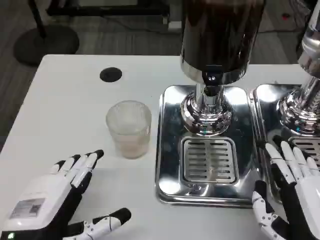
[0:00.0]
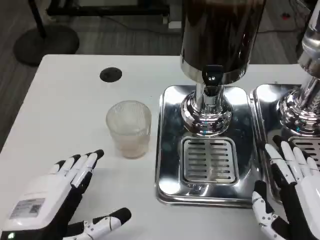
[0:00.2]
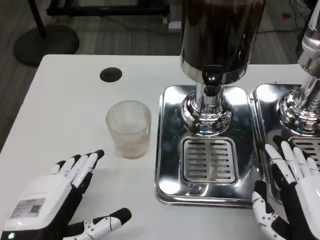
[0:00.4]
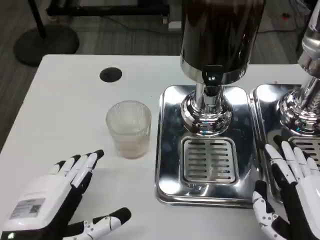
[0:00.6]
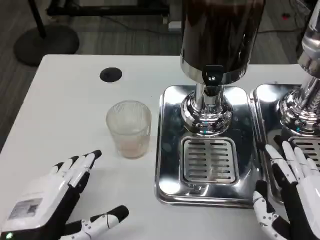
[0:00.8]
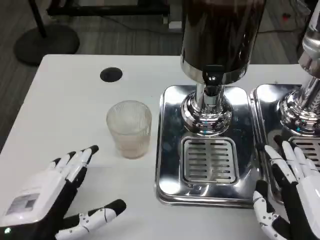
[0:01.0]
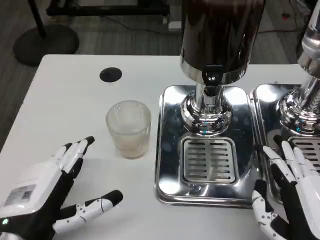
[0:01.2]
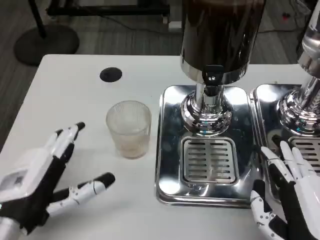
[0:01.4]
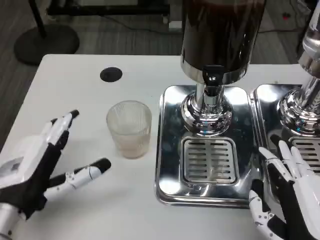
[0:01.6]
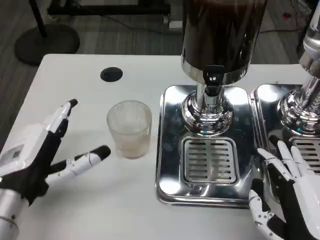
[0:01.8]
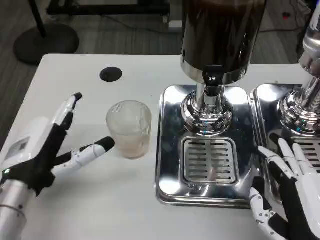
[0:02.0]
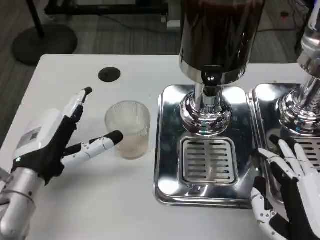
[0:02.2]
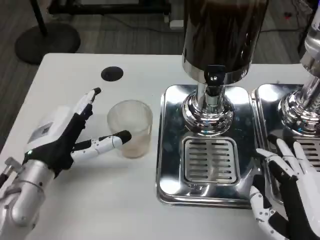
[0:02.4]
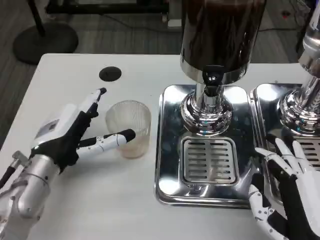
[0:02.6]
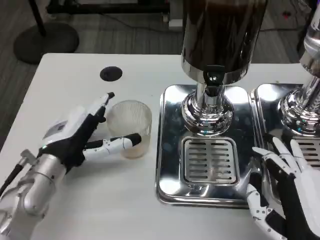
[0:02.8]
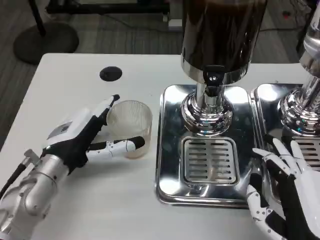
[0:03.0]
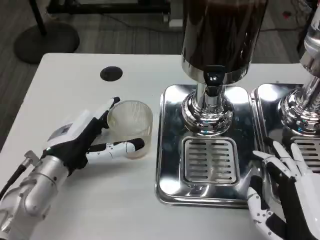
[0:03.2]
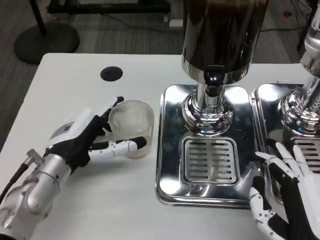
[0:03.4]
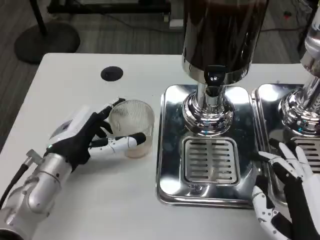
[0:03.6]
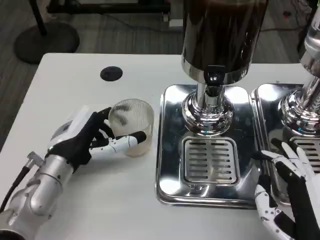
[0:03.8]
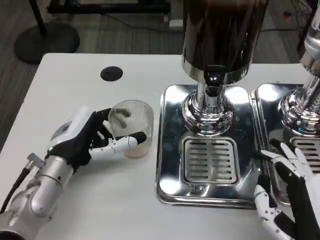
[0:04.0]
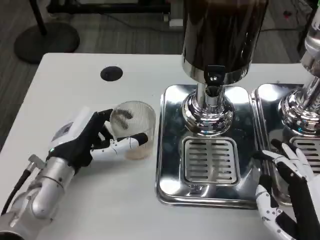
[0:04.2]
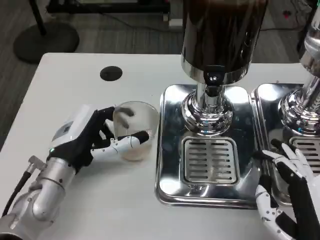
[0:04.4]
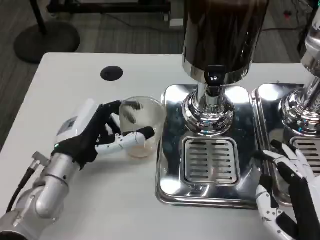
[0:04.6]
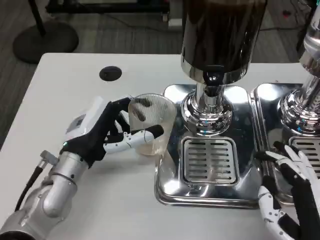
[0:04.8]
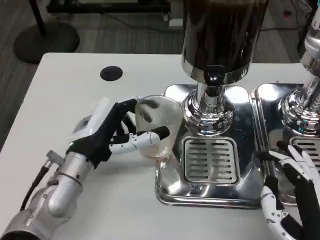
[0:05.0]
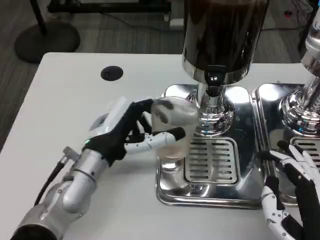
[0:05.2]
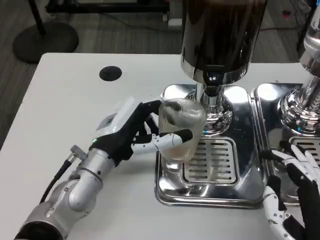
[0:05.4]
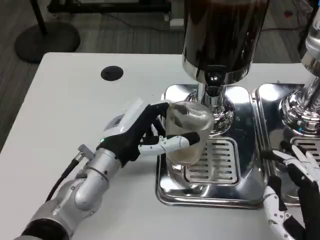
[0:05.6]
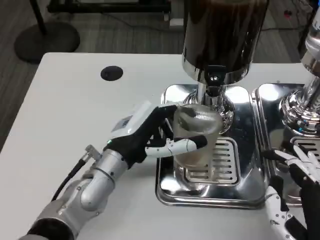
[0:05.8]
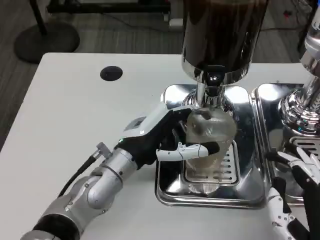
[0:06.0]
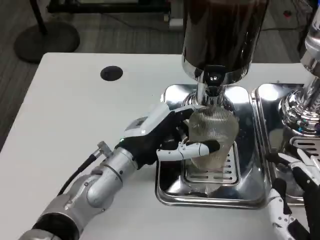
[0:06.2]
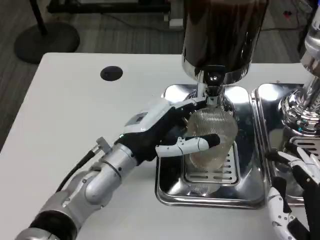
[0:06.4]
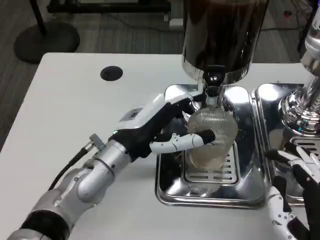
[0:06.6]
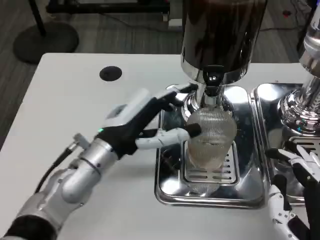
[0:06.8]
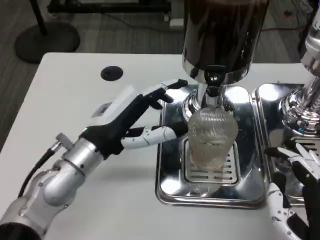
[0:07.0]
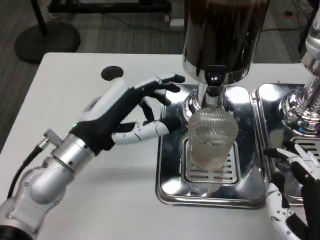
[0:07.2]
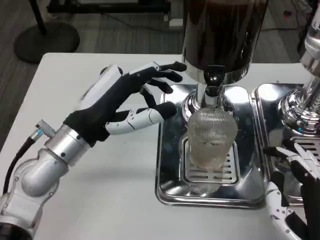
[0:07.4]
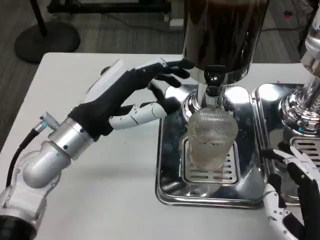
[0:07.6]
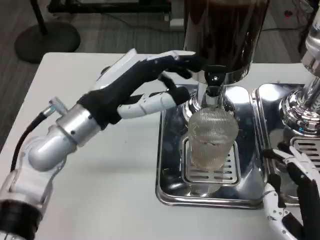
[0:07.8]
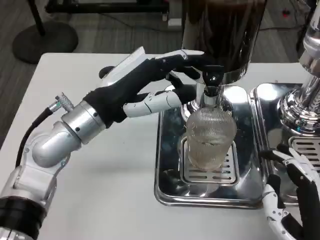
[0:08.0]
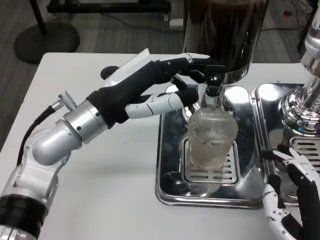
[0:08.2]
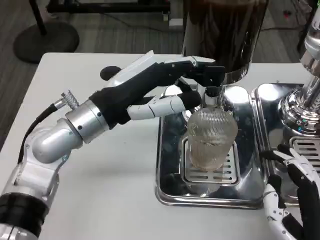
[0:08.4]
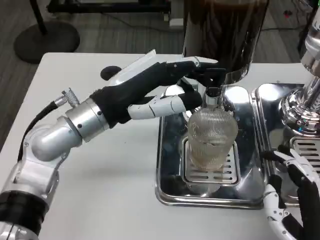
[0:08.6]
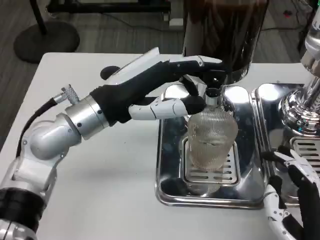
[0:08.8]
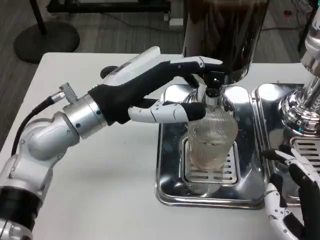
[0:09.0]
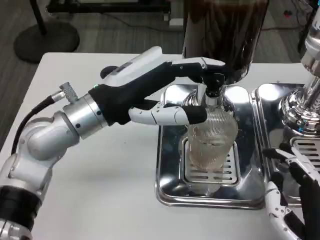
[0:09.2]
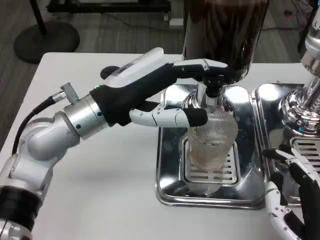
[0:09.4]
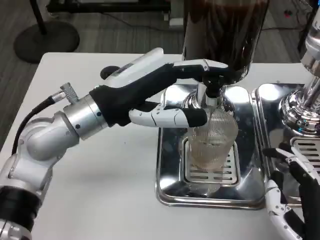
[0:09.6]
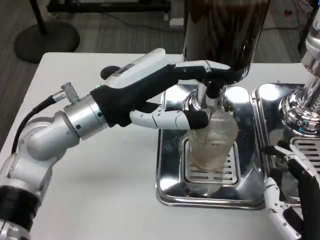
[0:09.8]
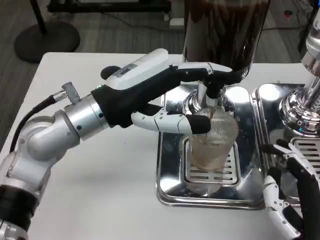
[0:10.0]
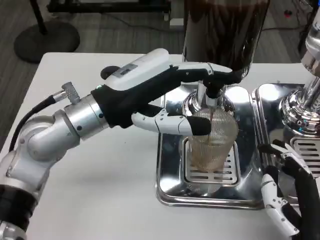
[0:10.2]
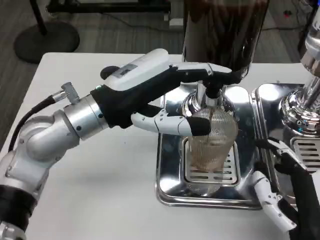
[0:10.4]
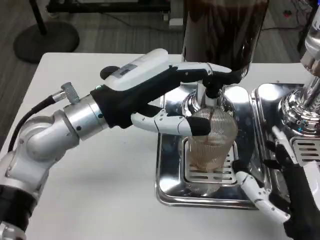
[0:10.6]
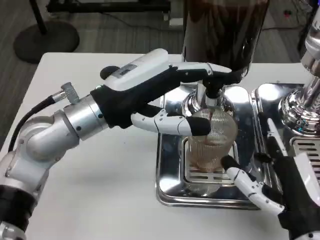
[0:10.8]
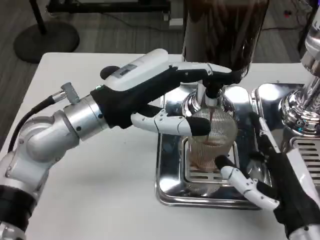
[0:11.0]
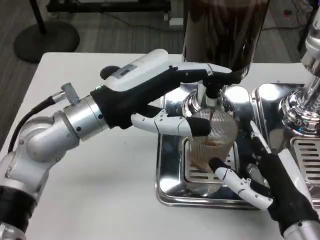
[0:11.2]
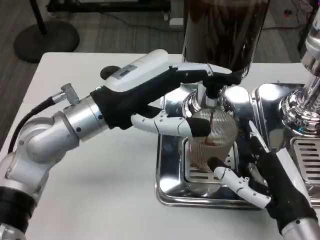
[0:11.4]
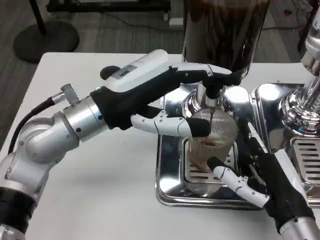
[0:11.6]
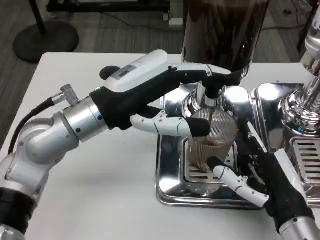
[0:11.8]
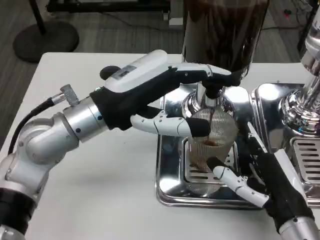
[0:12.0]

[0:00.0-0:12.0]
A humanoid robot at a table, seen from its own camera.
Task of the whole recording: Grasp the cup under the faucet to collect the drink, then remove the cup.
0:00.0 to 0:01.6: The left hand heads forward, covering about 5 cm.
0:01.6 to 0:03.0: The left hand is displaced forward by approximately 10 cm.
0:03.0 to 0:04.4: There are only small adjustments of the hands.
0:04.4 to 0:06.0: The left hand heads to the right, covering some 10 cm.
0:06.0 to 0:07.6: The left hand heads upward and to the left, covering about 10 cm.
0:07.6 to 0:09.0: The hands move only a little.
0:09.0 to 0:10.4: The hands make only small movements.
0:10.4 to 0:12.0: The right hand is displaced forward by approximately 5 cm.

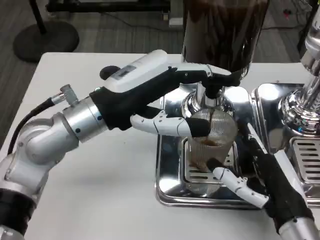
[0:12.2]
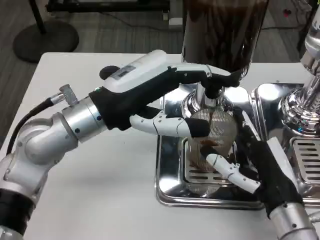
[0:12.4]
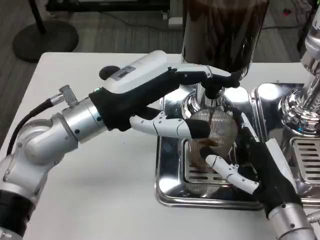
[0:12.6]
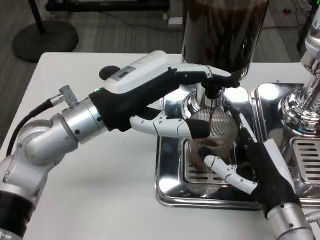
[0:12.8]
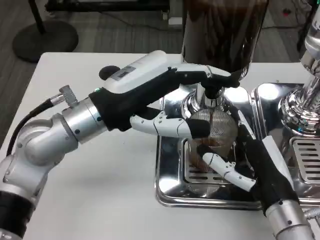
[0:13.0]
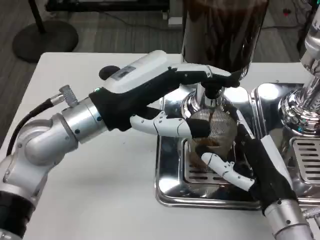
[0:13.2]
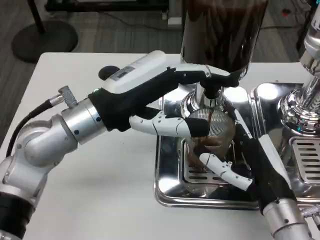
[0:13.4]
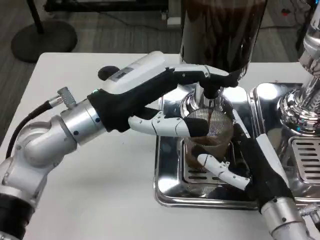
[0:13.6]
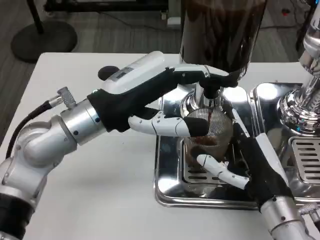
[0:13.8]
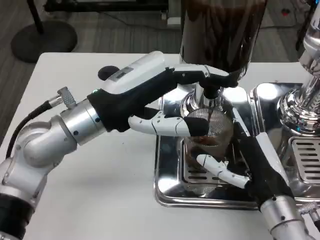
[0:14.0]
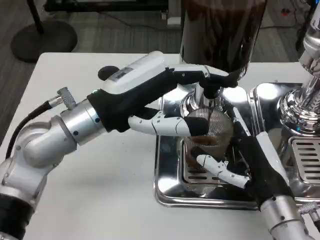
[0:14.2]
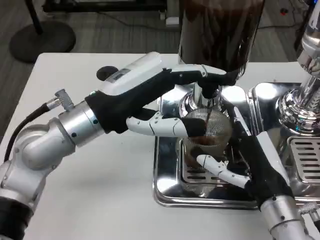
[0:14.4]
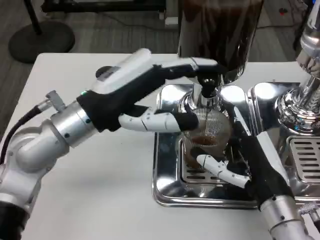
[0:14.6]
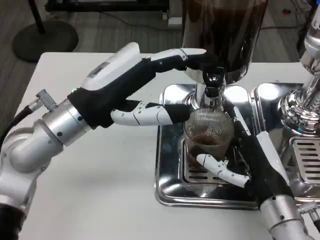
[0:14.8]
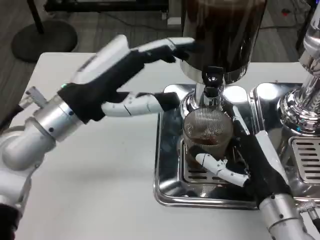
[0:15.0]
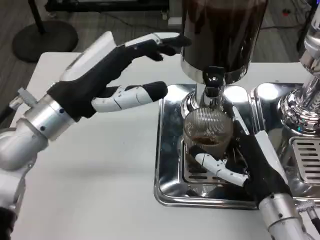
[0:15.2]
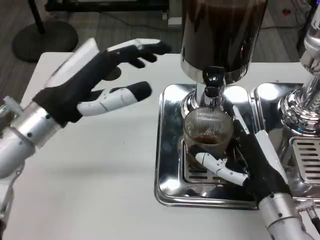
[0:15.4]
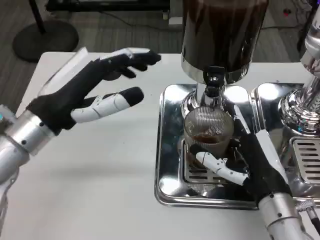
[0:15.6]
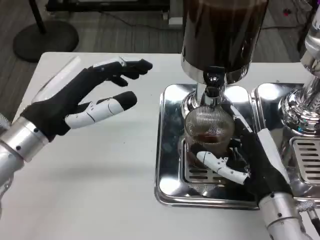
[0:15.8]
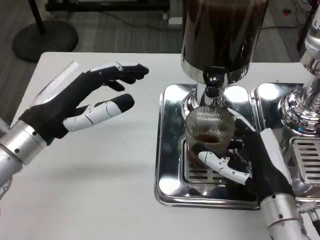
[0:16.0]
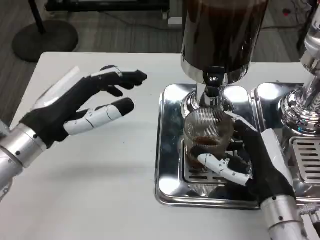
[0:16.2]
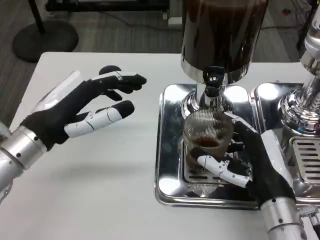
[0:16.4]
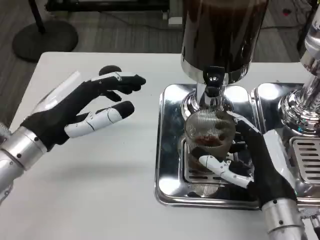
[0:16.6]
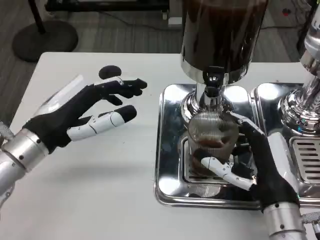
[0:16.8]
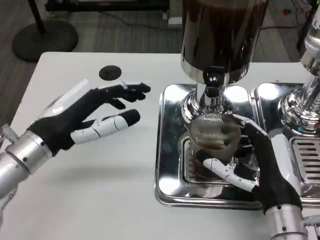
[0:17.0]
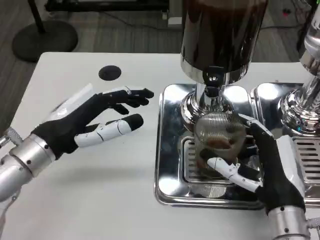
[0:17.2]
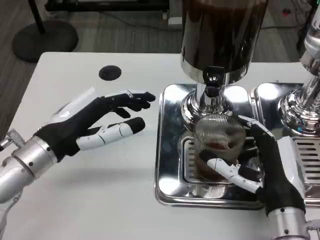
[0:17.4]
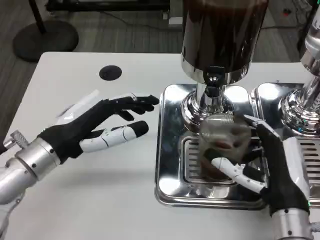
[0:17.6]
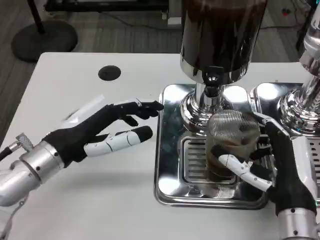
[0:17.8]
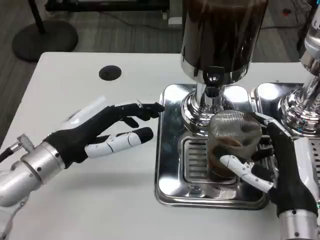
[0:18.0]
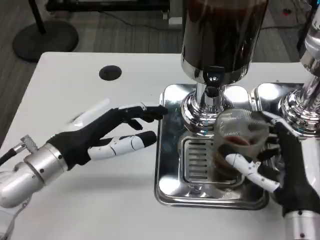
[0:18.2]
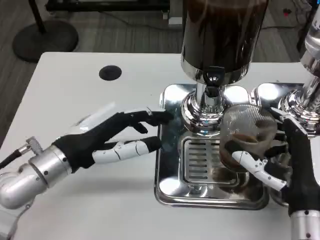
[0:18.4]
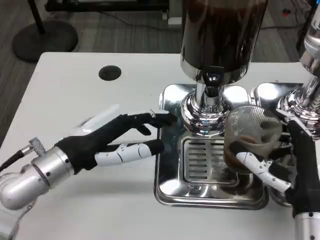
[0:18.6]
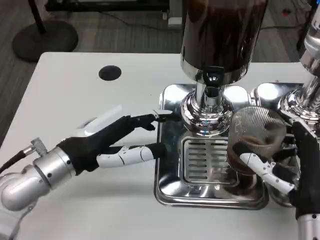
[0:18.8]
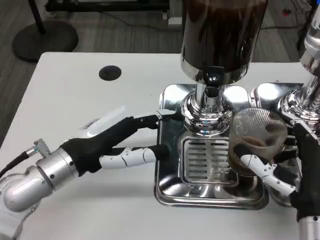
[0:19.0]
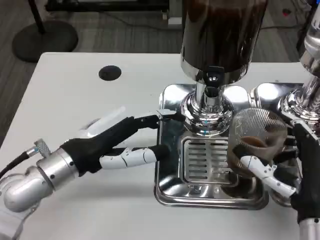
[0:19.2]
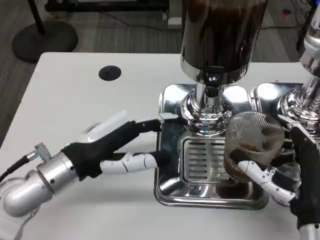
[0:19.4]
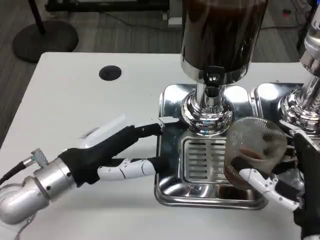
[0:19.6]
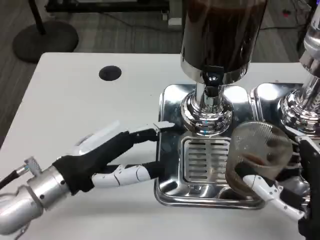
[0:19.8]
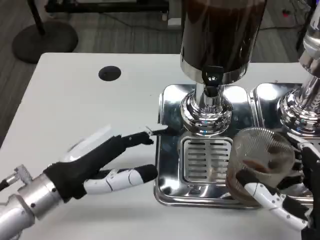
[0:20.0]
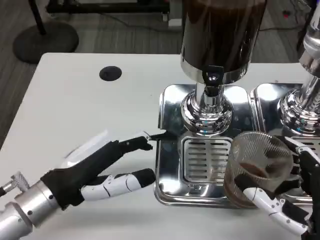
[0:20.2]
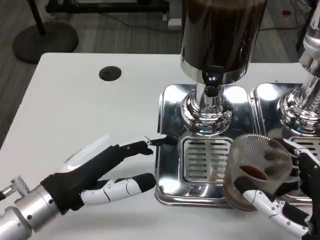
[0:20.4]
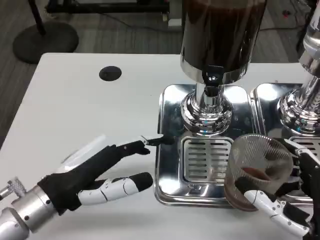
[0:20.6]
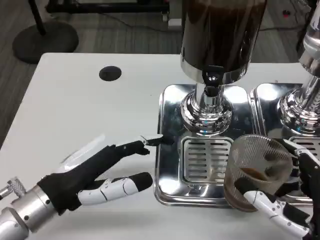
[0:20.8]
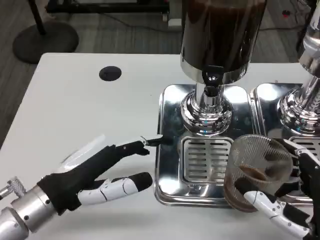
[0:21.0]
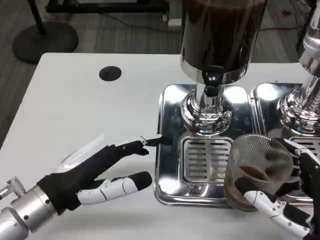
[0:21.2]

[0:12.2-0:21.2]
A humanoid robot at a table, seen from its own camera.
Task of the whole recording: Grasp the cup under the faucet to collect the drink, then remove the cup.
0:15.2 to 0:16.6: The left hand shifts by about 5 cm.
0:18.2 to 0:19.8: The right hand is displaced backward by approximately 5 cm.

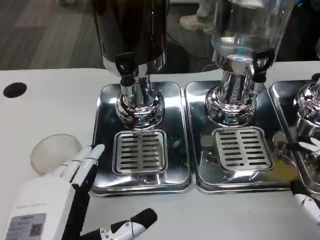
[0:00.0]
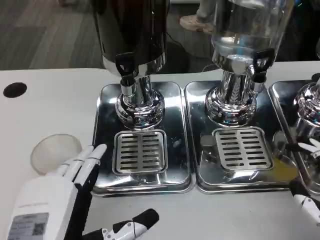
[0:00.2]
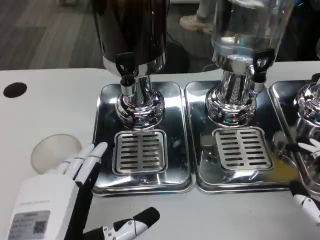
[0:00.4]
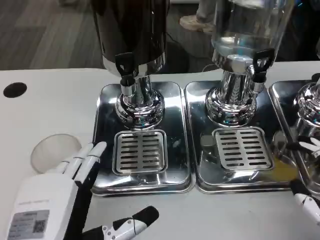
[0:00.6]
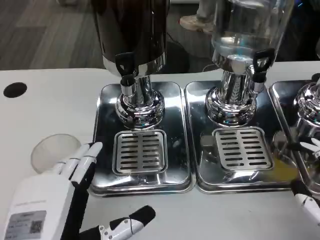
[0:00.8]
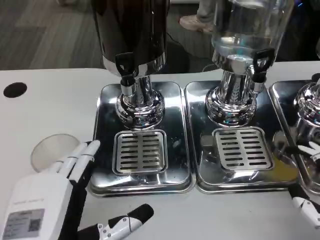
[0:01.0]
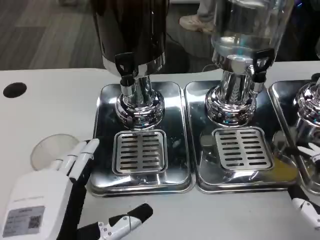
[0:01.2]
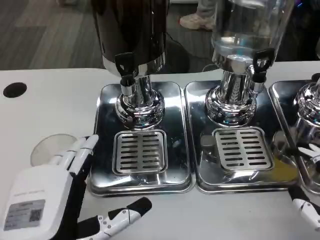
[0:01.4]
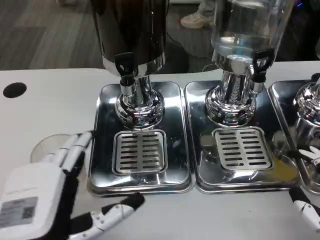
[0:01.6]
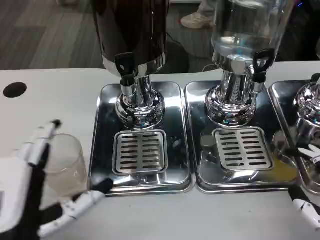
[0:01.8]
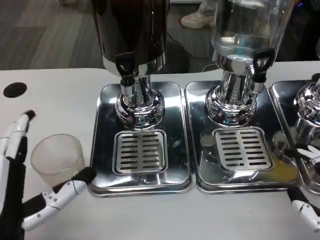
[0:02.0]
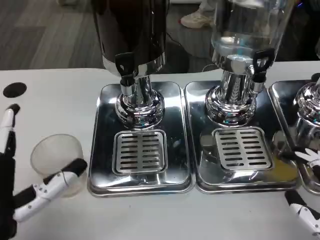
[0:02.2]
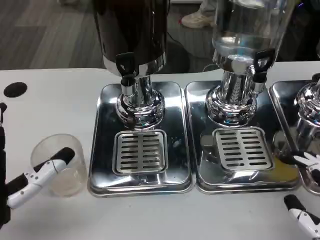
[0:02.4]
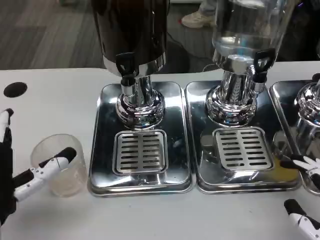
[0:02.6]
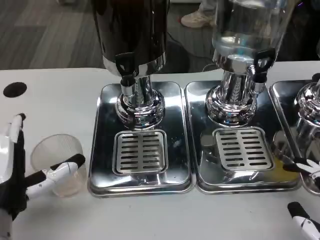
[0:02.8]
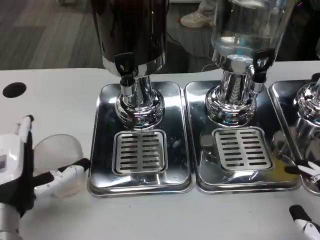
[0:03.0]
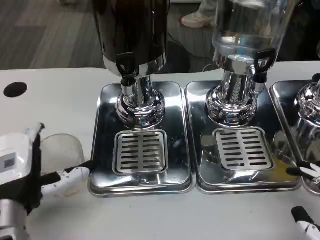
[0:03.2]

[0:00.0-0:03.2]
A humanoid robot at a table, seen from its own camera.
Task of the whole recording: Grasp the cup under the faucet to collect the drink, then remove the cup.
0:00.0 to 0:01.6: The hands make only small movements.
0:01.6 to 0:03.2: The left hand shifts about 10 cm forward.
